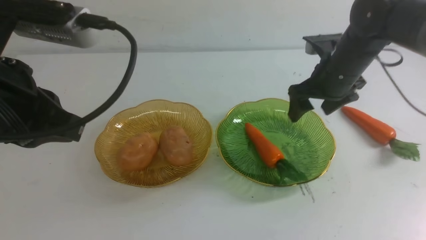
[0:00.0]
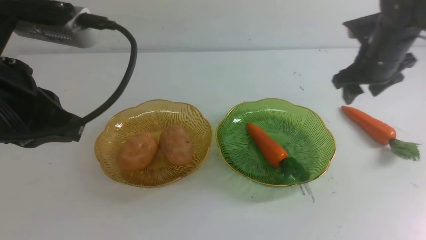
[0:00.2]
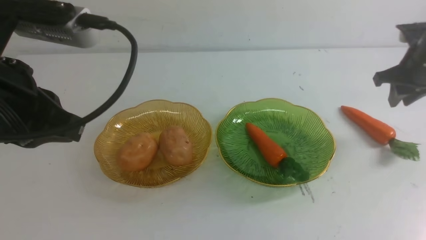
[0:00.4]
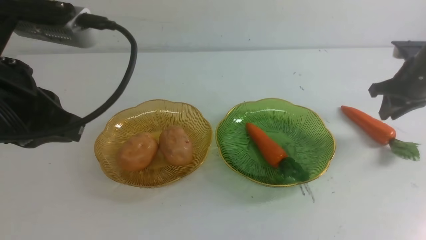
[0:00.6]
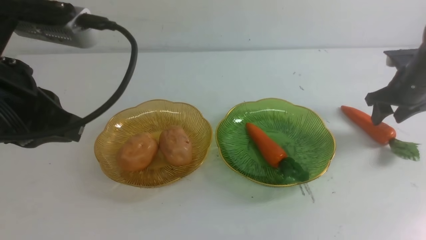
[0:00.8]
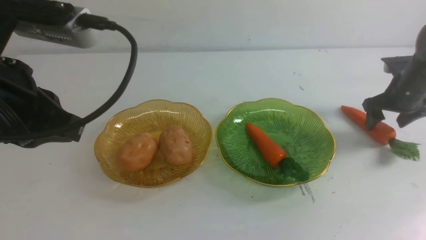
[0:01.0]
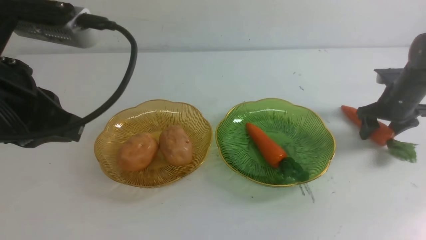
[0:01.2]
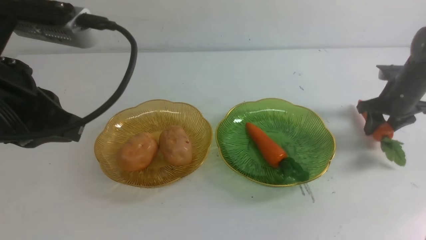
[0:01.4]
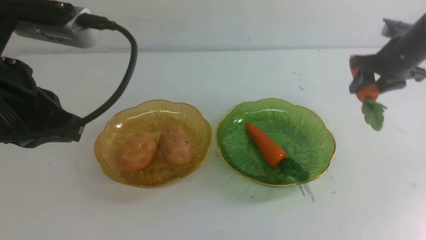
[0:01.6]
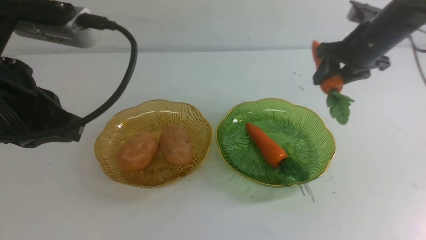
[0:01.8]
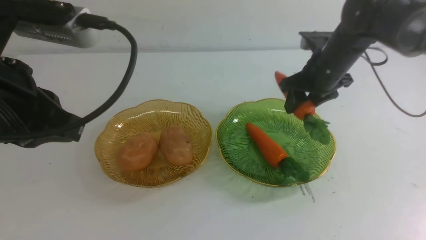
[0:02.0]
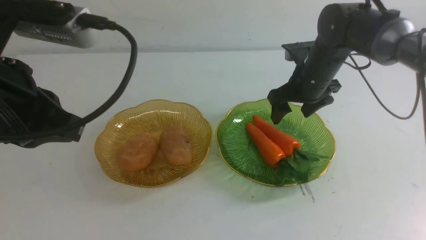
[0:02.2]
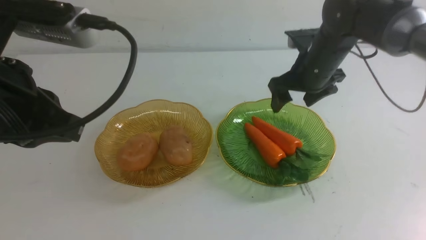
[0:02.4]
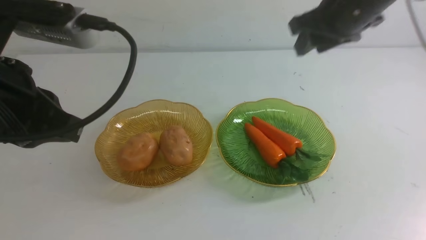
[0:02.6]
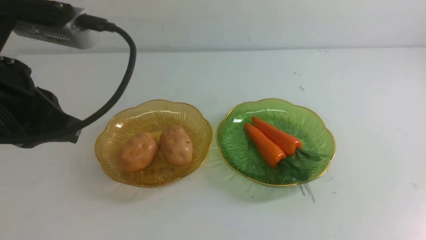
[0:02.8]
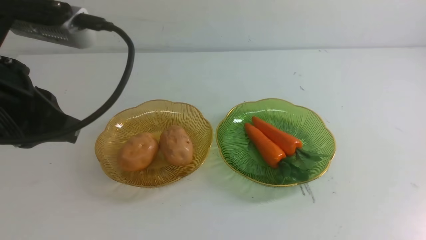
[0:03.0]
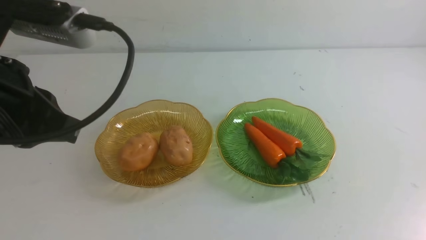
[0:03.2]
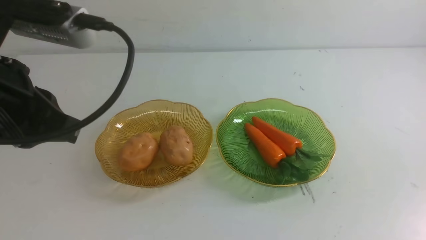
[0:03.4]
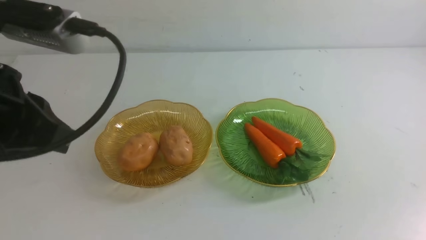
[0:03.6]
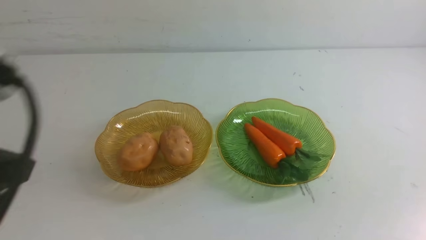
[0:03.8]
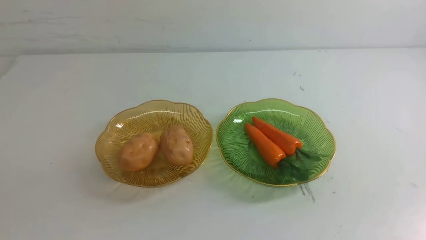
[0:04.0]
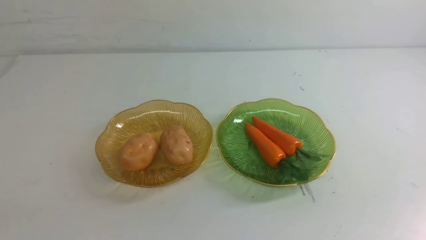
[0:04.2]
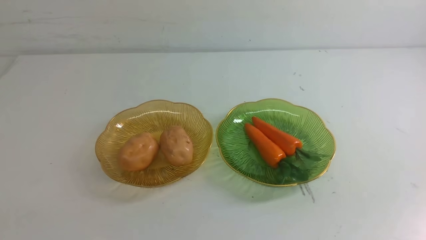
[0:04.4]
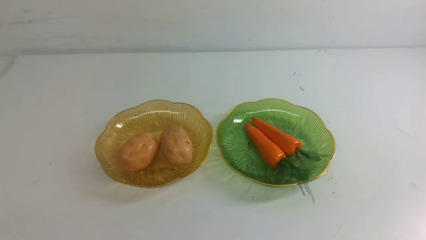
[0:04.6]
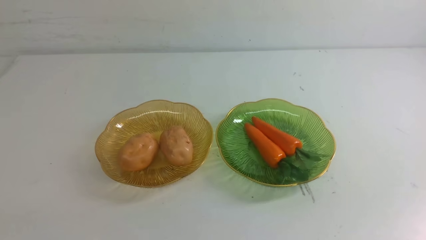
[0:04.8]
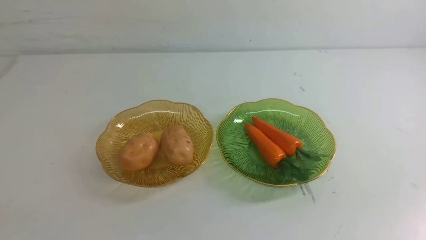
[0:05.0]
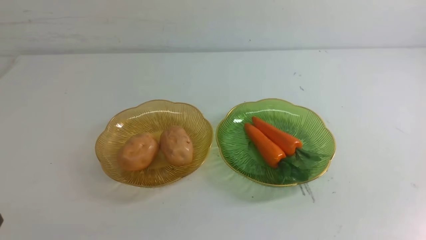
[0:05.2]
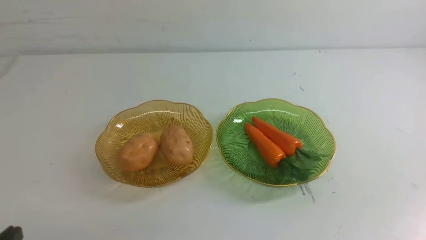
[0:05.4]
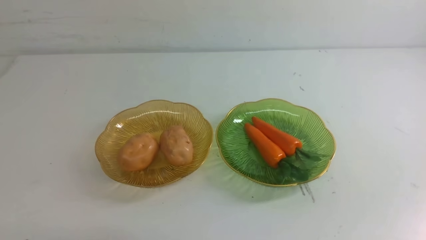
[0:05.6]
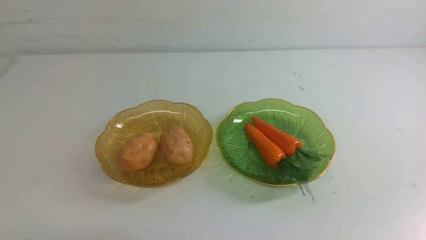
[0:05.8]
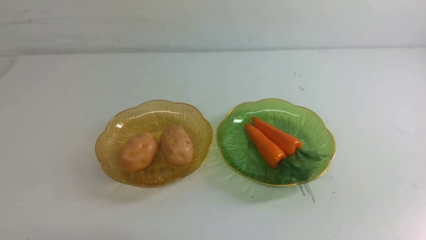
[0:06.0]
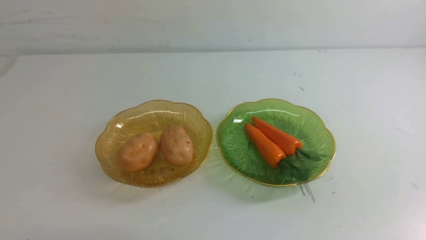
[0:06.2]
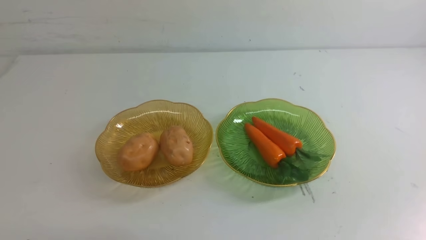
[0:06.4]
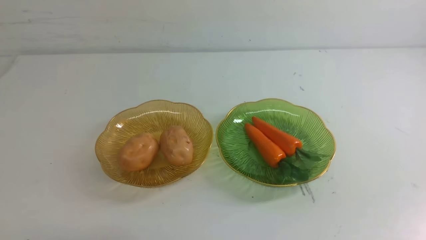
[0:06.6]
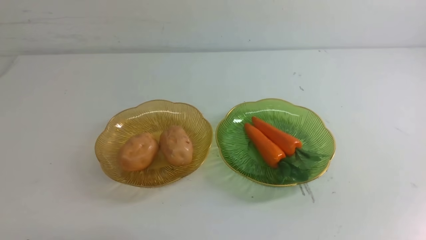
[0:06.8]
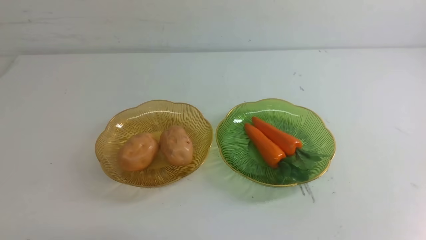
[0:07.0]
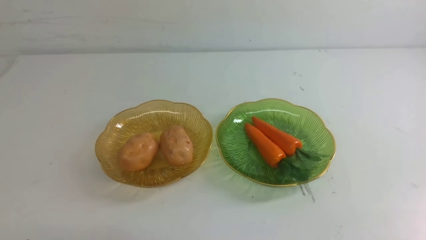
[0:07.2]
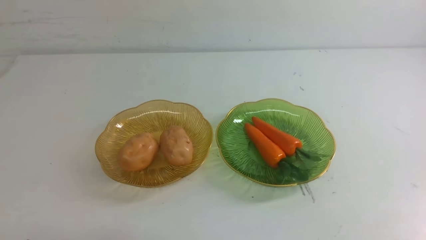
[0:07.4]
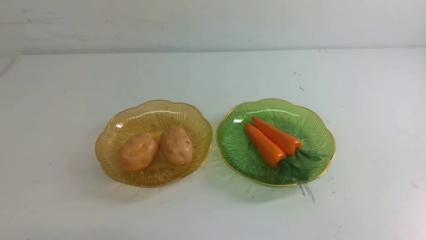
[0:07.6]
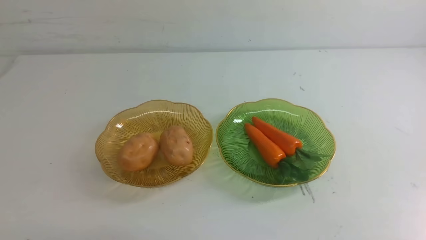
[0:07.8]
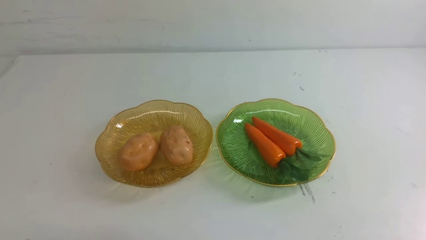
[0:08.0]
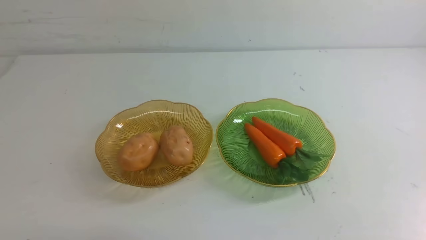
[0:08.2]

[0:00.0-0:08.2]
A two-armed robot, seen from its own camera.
Step, 0:00.0 to 0:02.4: use the right arm to grab a carrot and put it into the right plate.
0:00.0 to 0:01.6: The right gripper goes to the right and returns, some 15 cm each way.
0:01.6 to 0:03.2: The right gripper goes about 40 cm backward, and closes up. Meanwhile the left gripper moves backward, roughly 10 cm.
0:03.2 to 0:05.0: The left gripper moves downward, roughly 20 cm.
